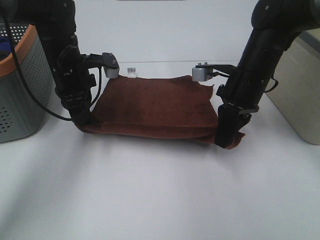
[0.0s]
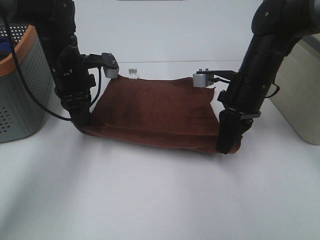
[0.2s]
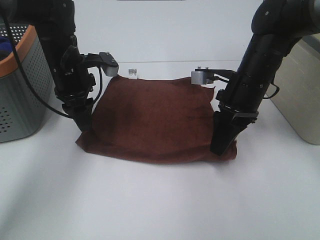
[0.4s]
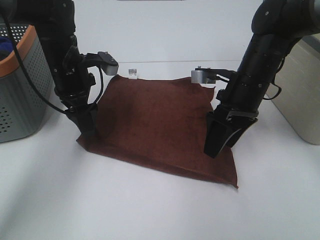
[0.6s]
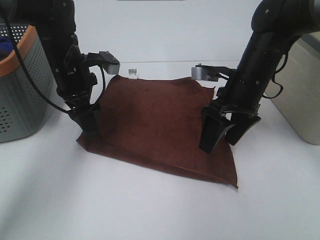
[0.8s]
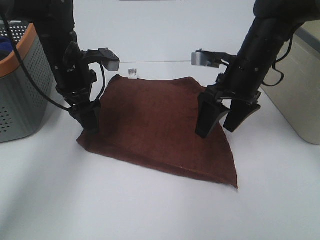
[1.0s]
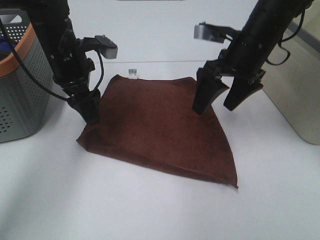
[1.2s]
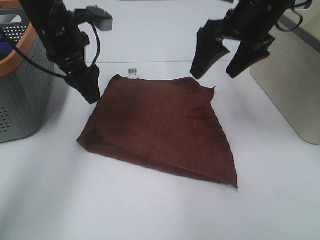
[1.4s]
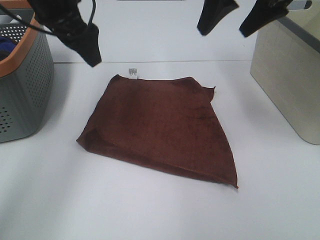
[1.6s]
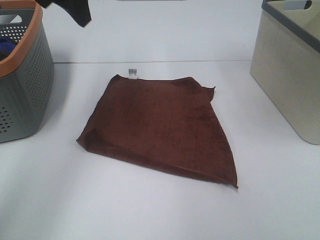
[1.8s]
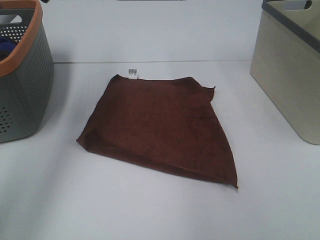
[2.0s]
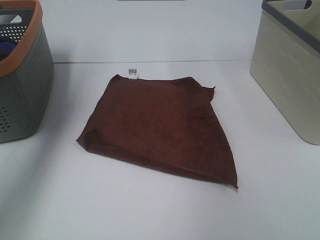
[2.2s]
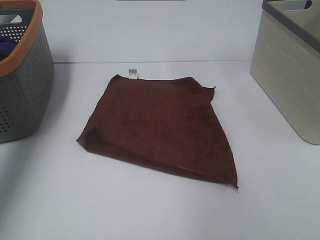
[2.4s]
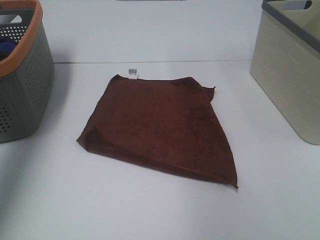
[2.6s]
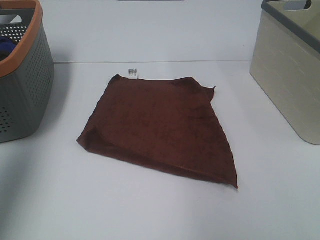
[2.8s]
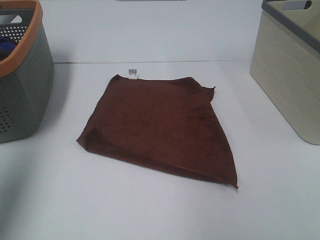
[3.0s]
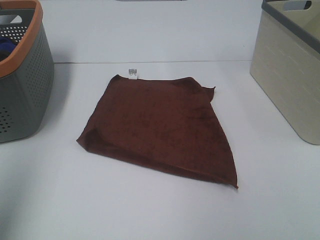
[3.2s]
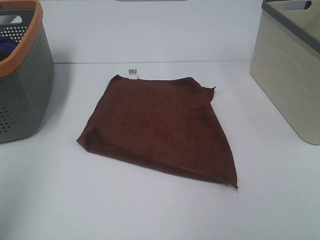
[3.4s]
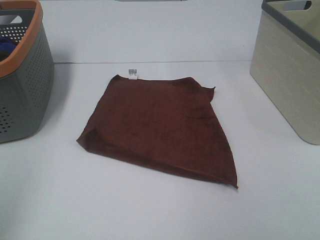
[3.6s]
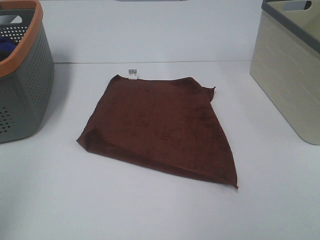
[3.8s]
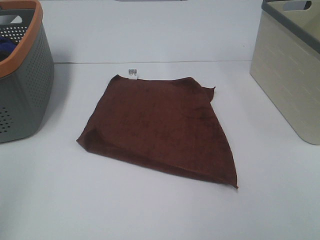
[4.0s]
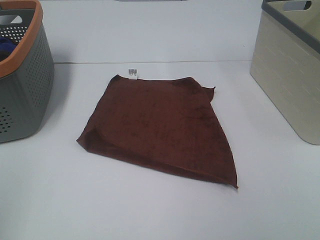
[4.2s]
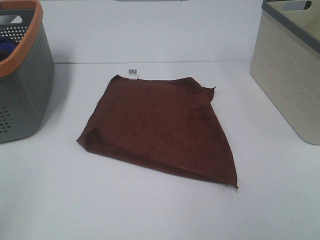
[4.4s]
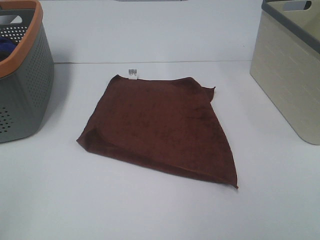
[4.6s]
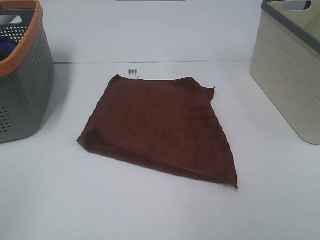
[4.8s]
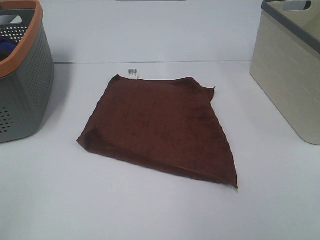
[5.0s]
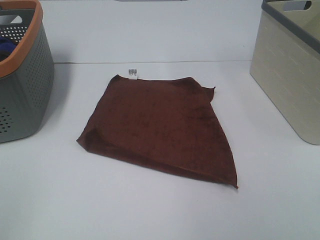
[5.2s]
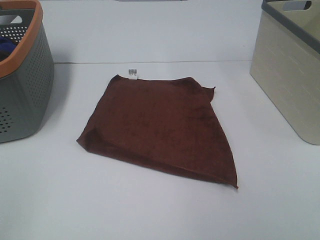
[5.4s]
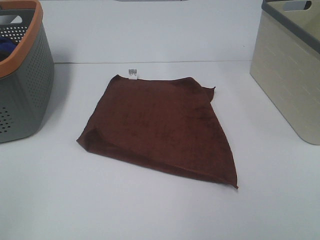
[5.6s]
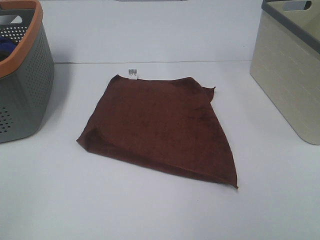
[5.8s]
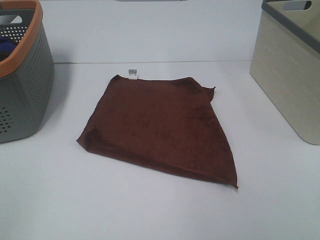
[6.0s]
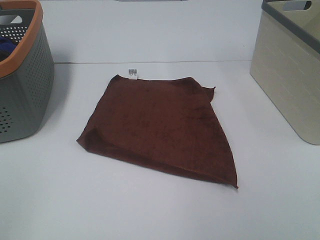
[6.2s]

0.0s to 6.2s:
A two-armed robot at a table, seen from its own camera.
Task of the whole recording: Remove the towel and place it.
0.0s to 1.6s: Both grippers travel together upward, about 20 cm. The right gripper opens its fingers; the left gripper opens.
1.6s to 3.2s: The right gripper travels backward and to the right by approximately 35 cm; the left gripper shifts some 30 cm backward and to the left.
3.2s to 4.6s: The left gripper is displaced backward and downward by some 15 cm.
4.6s to 6.2s: Neither gripper changes place.

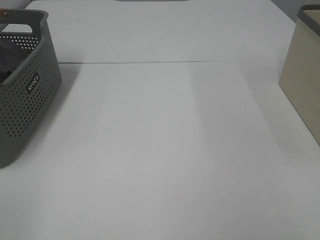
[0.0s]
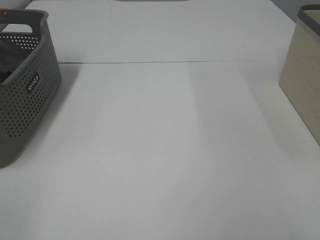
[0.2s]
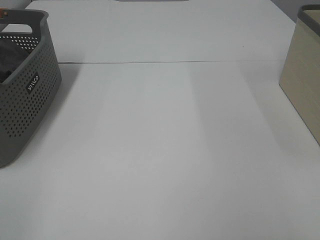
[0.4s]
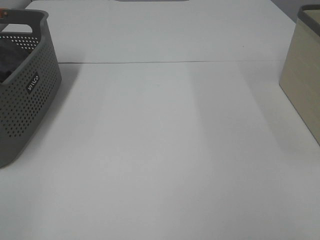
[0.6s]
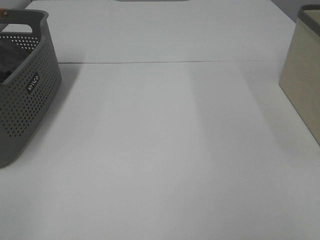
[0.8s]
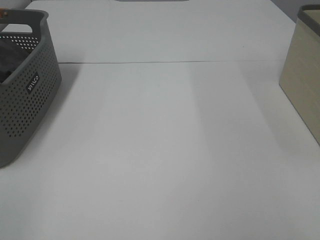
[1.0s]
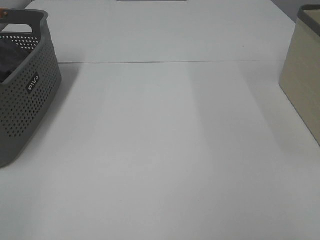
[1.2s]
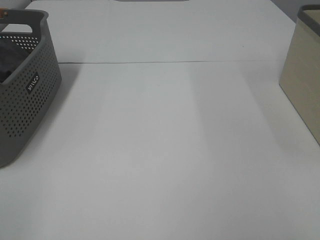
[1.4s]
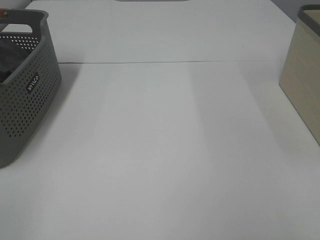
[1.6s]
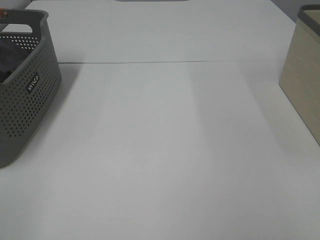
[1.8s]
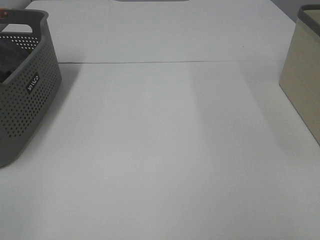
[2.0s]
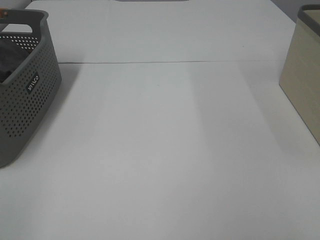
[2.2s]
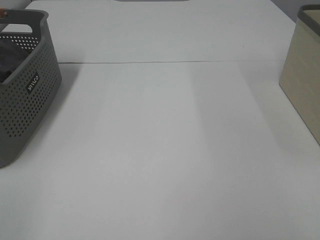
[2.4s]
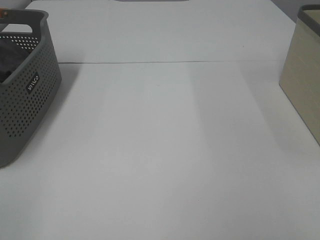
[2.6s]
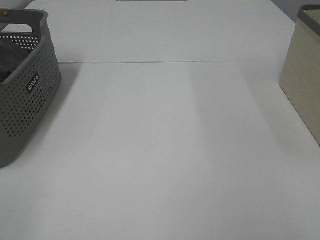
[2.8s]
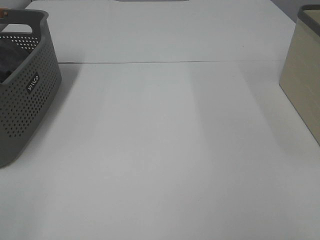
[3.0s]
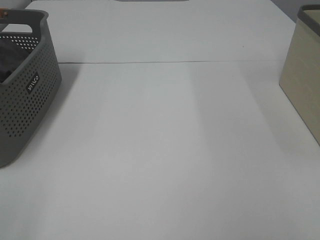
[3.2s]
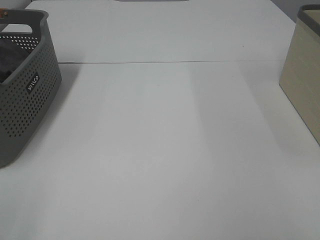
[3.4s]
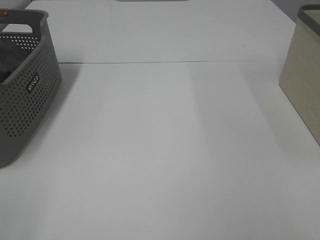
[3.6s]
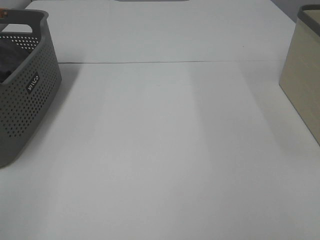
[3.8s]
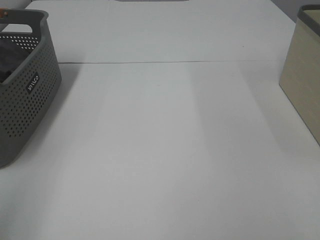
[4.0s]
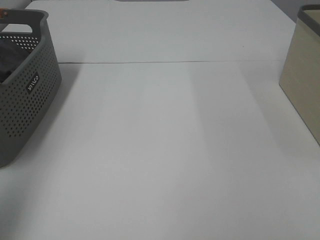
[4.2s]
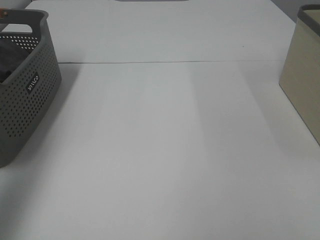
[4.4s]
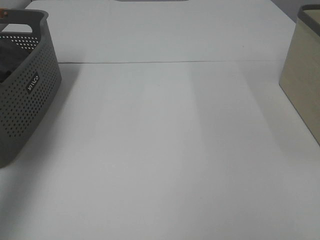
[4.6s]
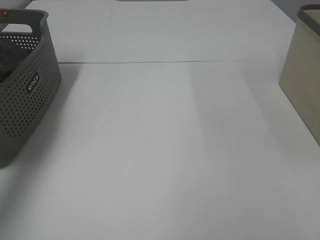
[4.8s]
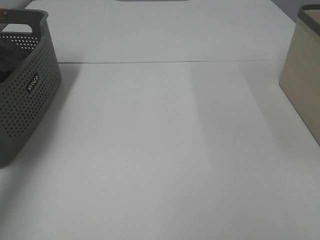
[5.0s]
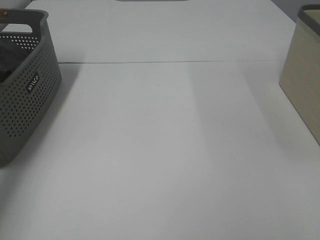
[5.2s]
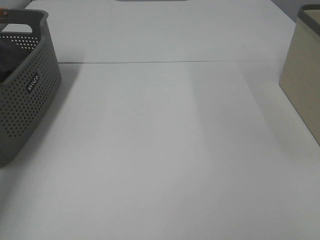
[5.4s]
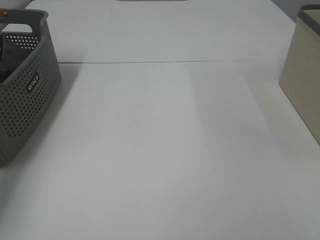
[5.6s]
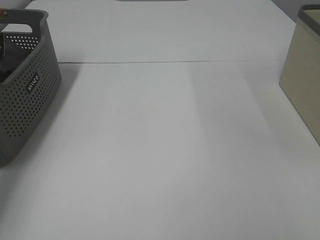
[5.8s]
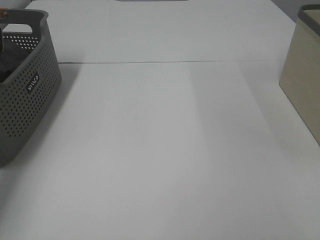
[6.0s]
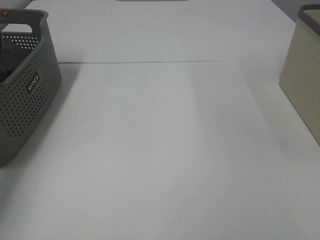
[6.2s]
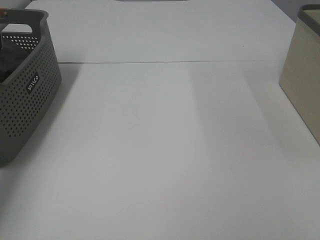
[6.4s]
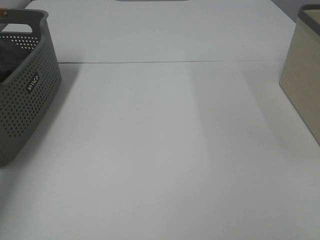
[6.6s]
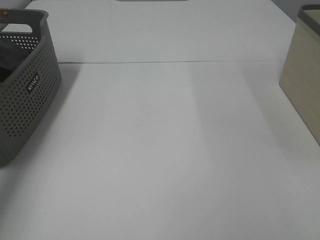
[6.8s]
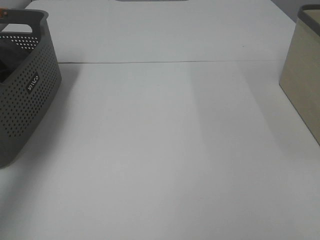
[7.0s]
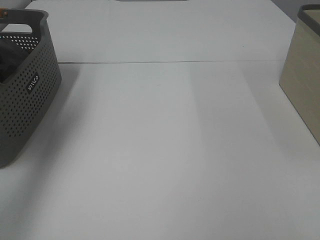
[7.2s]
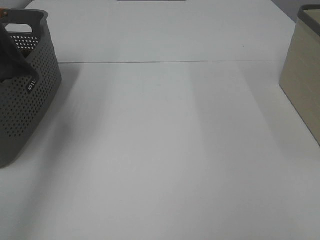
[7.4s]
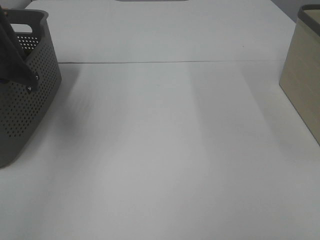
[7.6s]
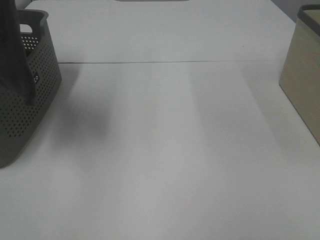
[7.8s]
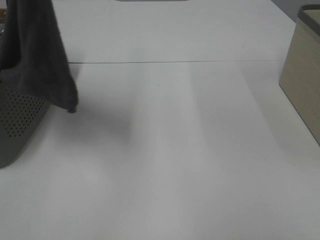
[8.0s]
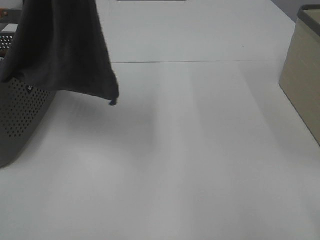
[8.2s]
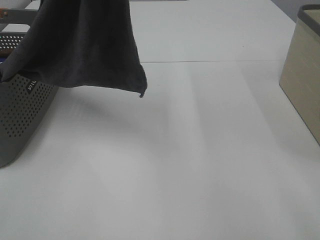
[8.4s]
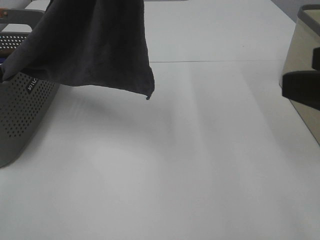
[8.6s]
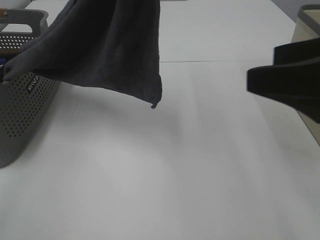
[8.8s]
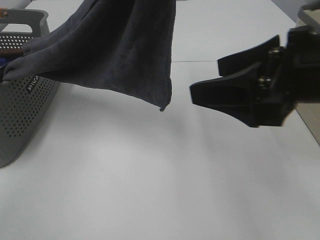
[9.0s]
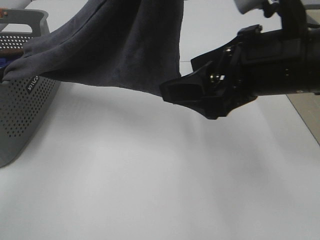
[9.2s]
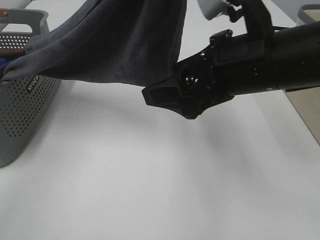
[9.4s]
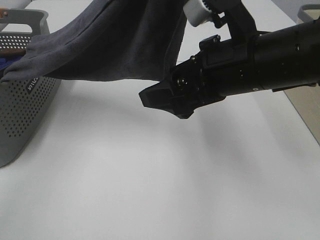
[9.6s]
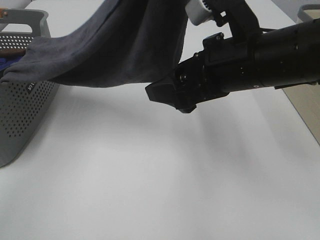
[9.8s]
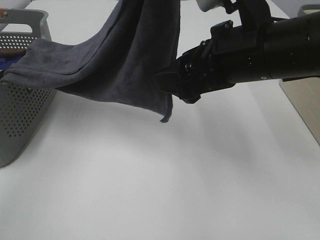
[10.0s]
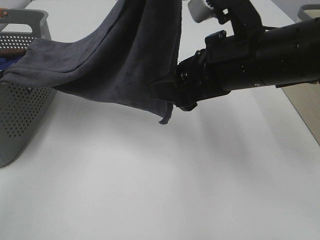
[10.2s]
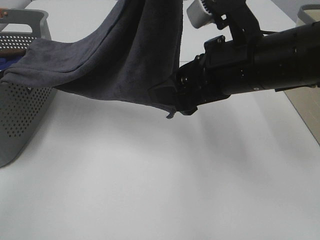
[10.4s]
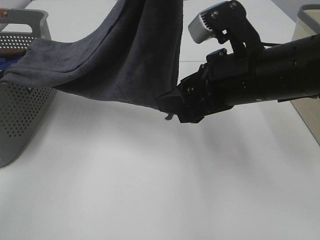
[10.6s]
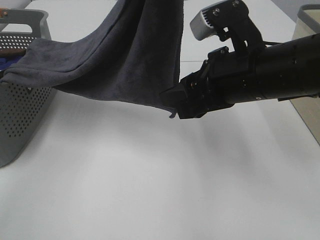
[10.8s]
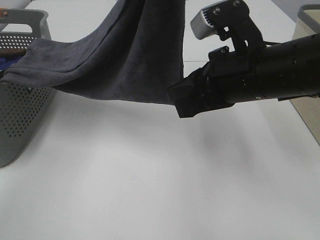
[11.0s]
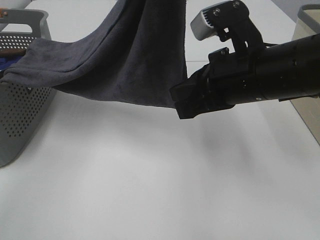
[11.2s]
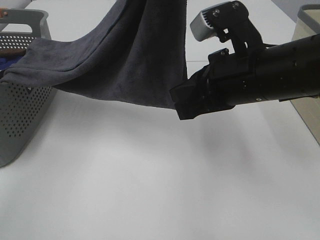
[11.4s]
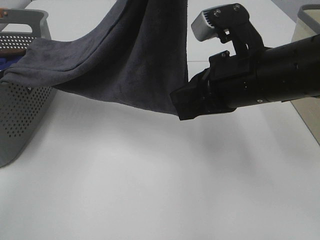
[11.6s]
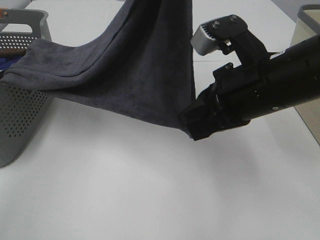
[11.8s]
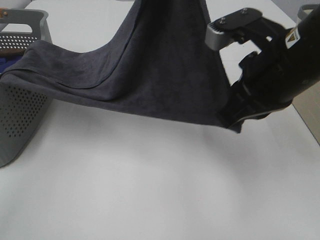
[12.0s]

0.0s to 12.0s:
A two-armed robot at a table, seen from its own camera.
Task of the whole recording: Remove the towel and place it.
0.0s to 3.0s: The two grippers keep their place.
3.0s to 4.4s: The left gripper is displaced forward and upward by approximately 25 cm.
4.4s to 6.0s: The left gripper shifts some 30 cm forward and downward, and closes up.
6.0s to 7.6s: The left gripper moves upward, to the right and backward, roughly 35 cm.
7.6s to 9.0s: The right gripper is displaced forward and to the left by roughly 20 cm, while the left gripper is displaced to the right by some 20 cm.
9.0s to 10.4s: The right gripper shifts roughly 5 cm forward and to the left.
10.4s to 12.0s: The right gripper closes.

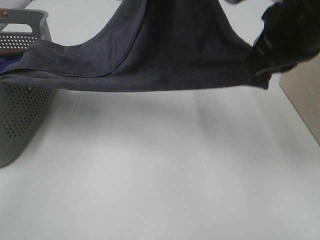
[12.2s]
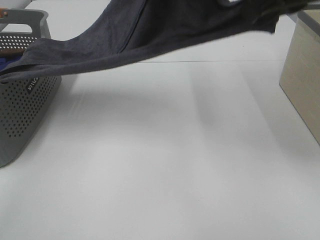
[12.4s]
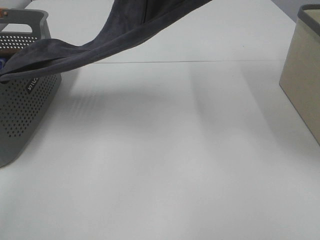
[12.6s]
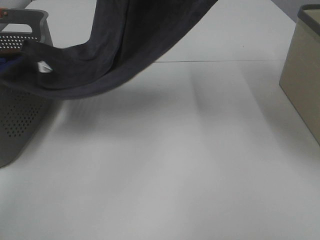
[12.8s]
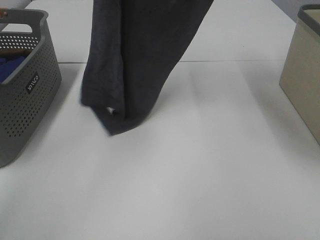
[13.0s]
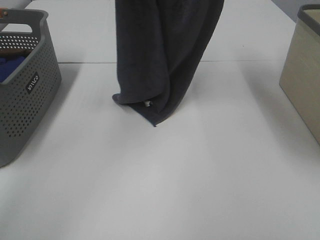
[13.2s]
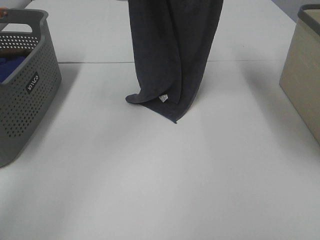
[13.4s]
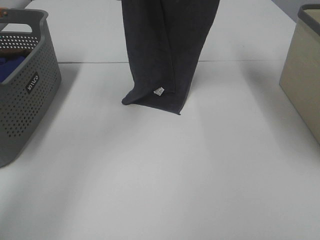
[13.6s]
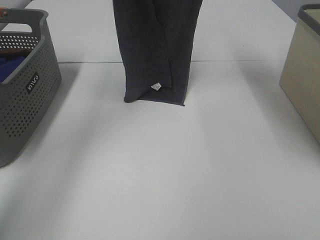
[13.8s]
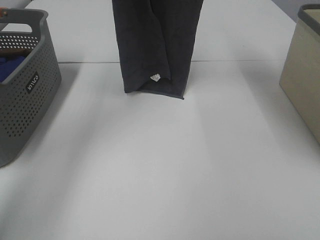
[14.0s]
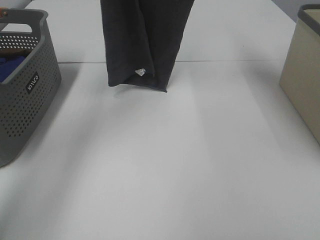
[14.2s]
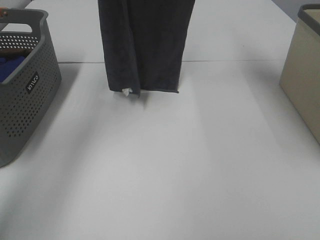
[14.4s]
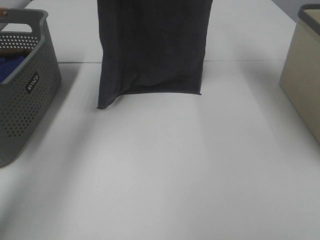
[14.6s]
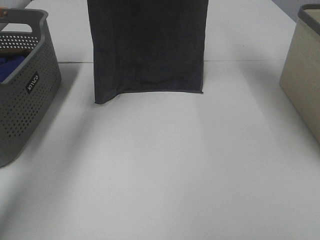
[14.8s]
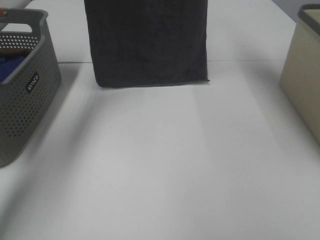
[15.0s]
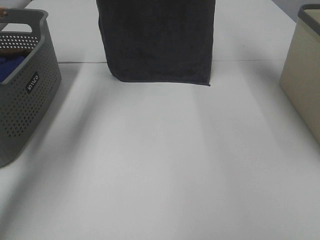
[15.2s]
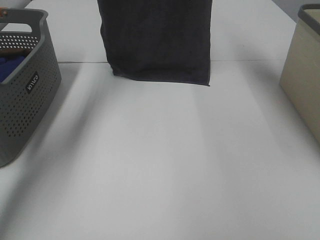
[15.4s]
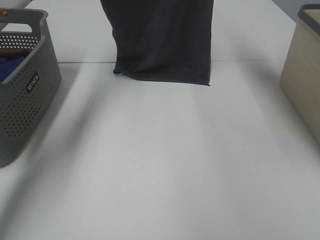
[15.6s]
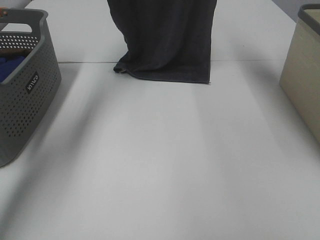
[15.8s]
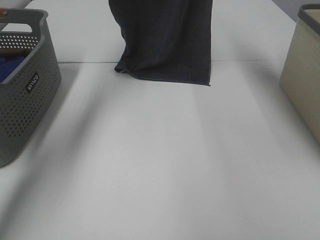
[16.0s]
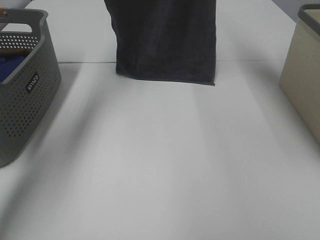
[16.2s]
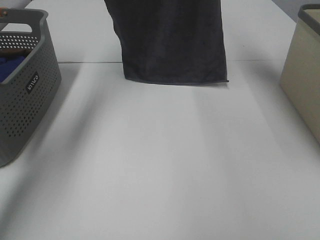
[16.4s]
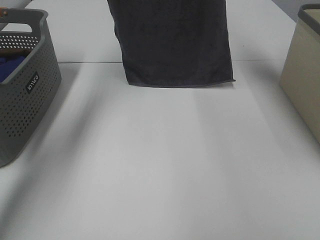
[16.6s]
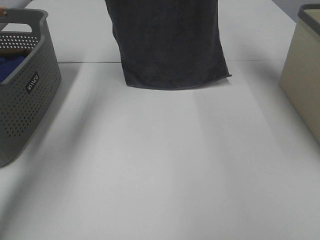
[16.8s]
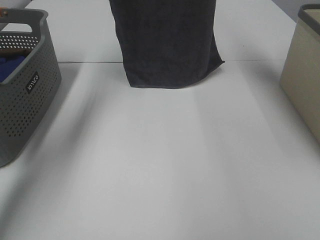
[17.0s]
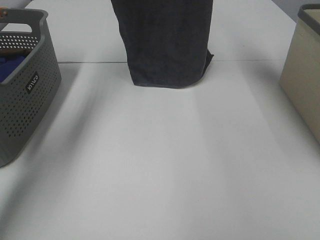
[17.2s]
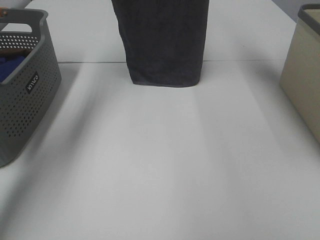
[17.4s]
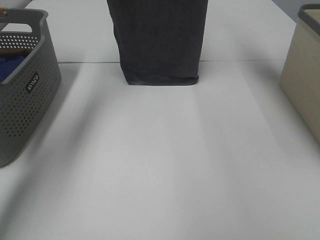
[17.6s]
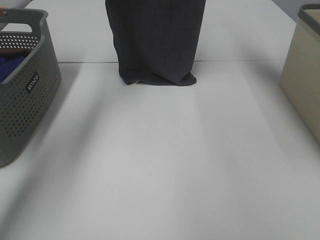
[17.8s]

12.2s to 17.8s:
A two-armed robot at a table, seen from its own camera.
Task of the whole recording: Remove the towel and place it.
12.2s to 13.6s: The right gripper travels forward and upward by approximately 20 cm. Meanwhile the left gripper moves forward and to the left, some 15 cm.
13.6s to 15.0s: The left gripper is displaced forward by roughly 5 cm.
